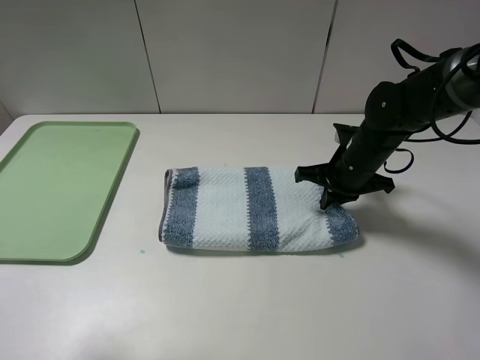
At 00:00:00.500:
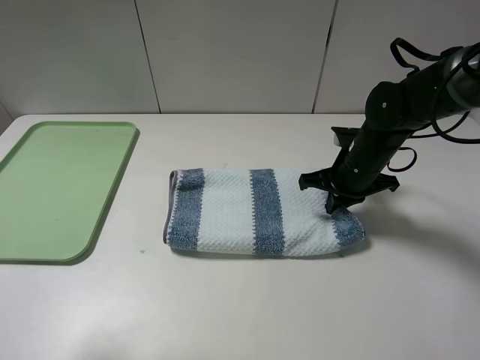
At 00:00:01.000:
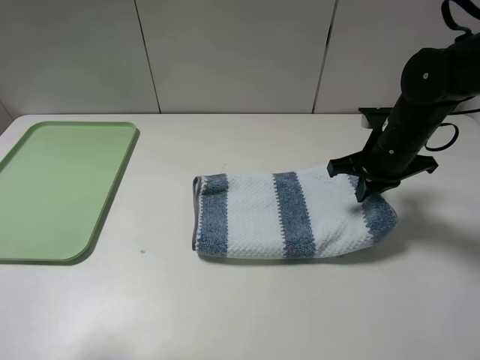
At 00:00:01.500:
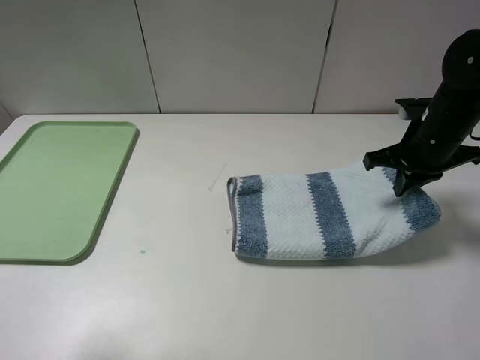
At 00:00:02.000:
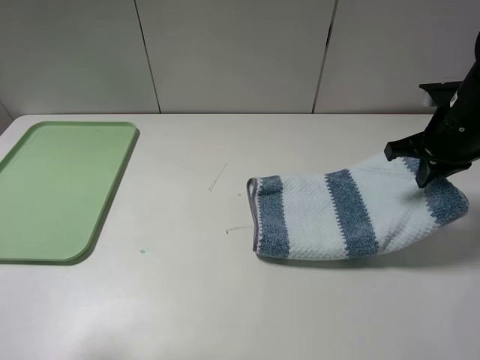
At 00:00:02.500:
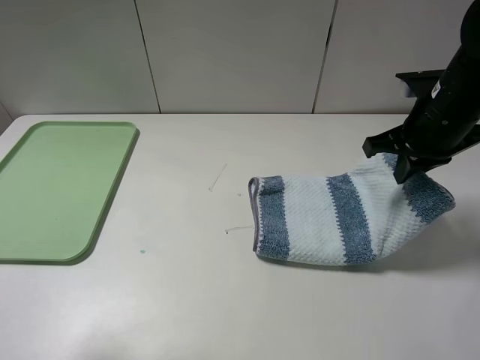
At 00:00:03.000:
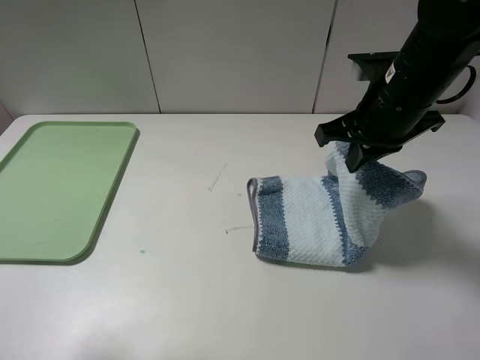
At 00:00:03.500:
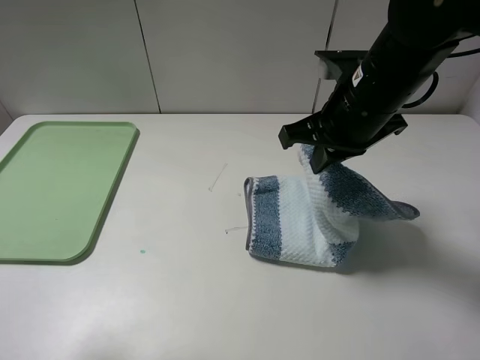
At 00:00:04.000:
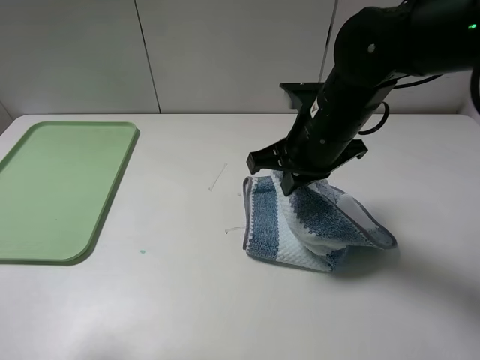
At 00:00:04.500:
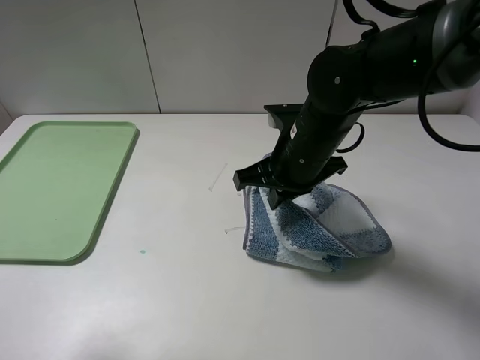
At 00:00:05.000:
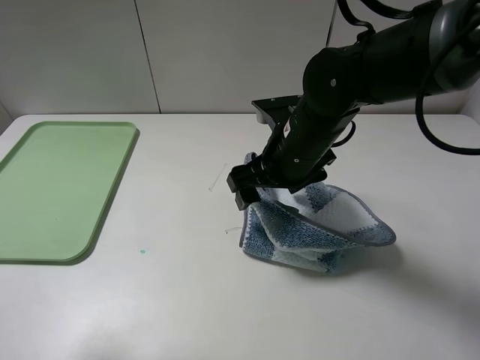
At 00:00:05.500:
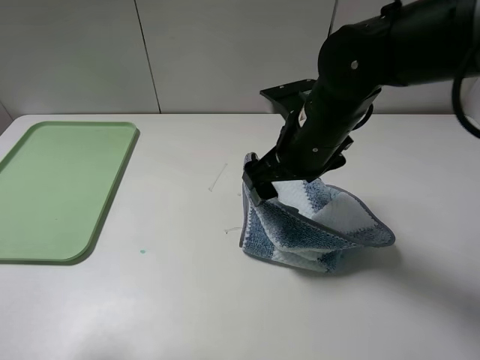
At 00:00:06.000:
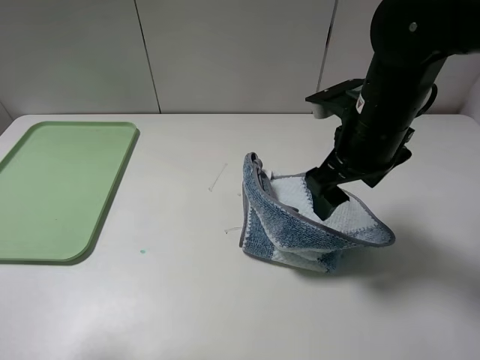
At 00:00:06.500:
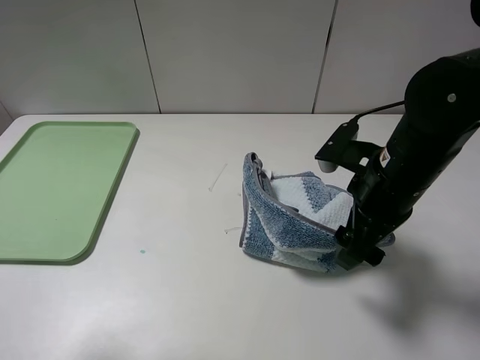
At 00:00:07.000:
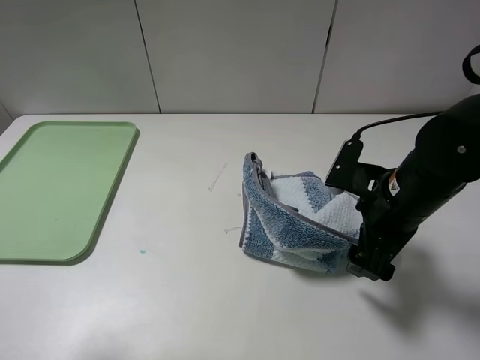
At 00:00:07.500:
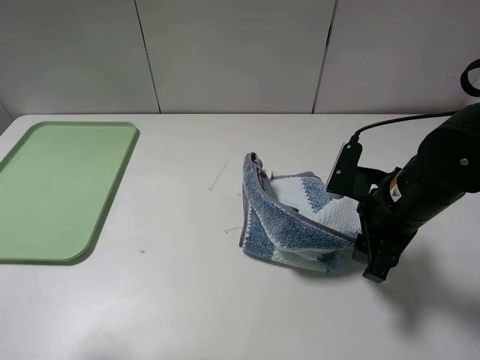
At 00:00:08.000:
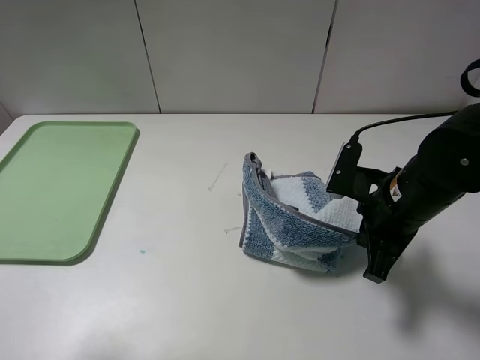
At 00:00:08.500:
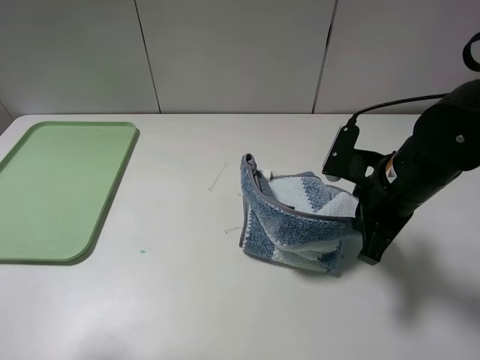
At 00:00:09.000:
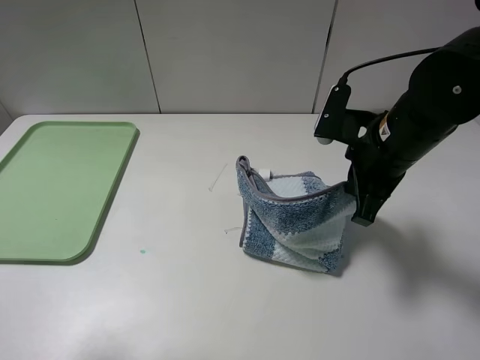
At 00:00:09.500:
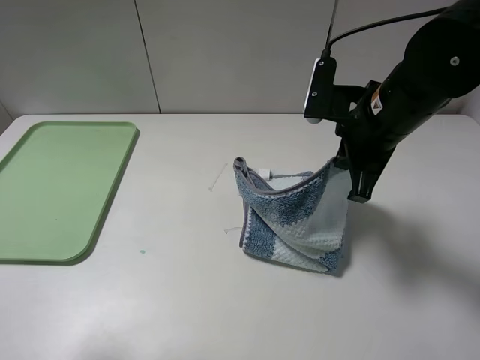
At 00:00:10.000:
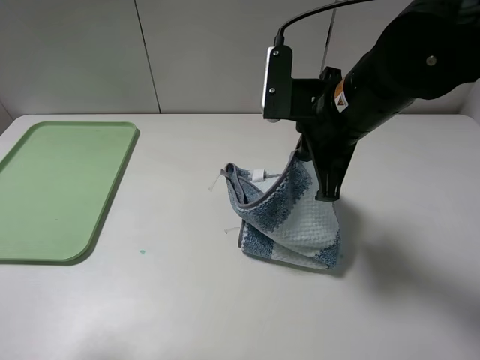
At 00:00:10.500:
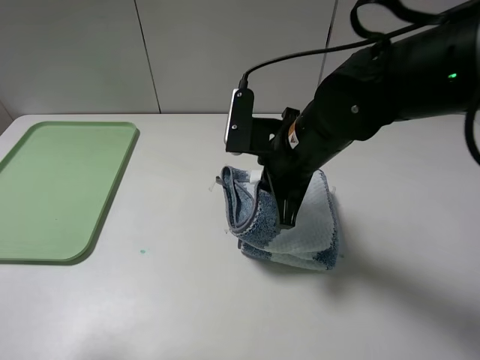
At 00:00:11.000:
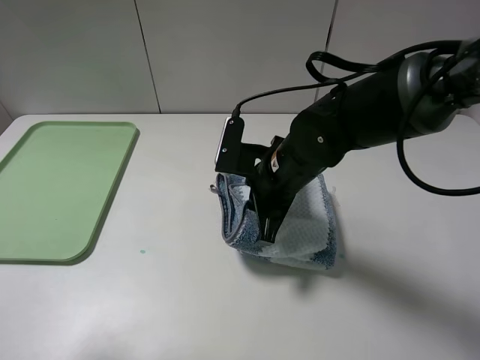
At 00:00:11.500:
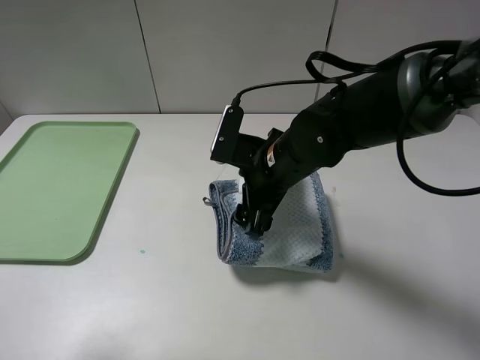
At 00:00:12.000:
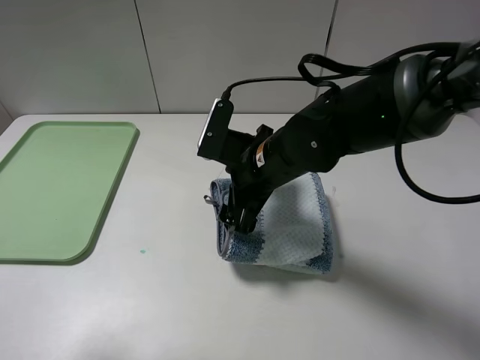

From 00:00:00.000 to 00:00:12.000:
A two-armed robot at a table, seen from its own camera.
From 00:00:00.000 to 00:00:02.000: The right gripper travels upward and to the right by approximately 15 cm.
From 00:00:02.000 to 00:00:04.000: The right gripper travels to the left by roughly 20 cm.
From 00:00:04.000 to 00:00:06.000: The right gripper shifts some 5 cm to the right, and opens.
From 00:00:06.000 to 00:00:08.000: The right gripper is displaced downward by about 5 cm, and closes its fingers.
From 00:00:08.000 to 00:00:10.000: The right gripper goes some 15 cm upward and to the left.
From 00:00:10.000 to 00:00:12.000: The right gripper shifts some 10 cm downward and to the left, and opens its fingers.

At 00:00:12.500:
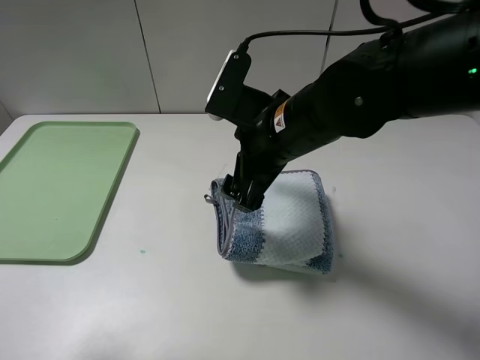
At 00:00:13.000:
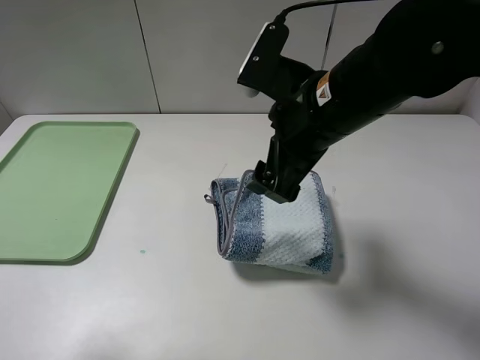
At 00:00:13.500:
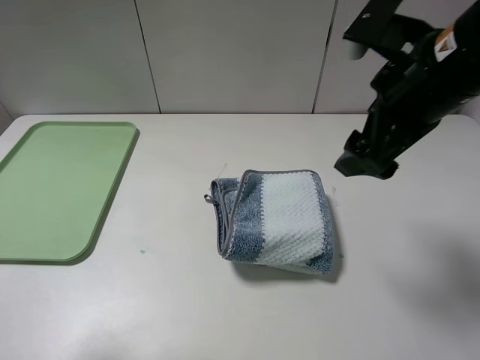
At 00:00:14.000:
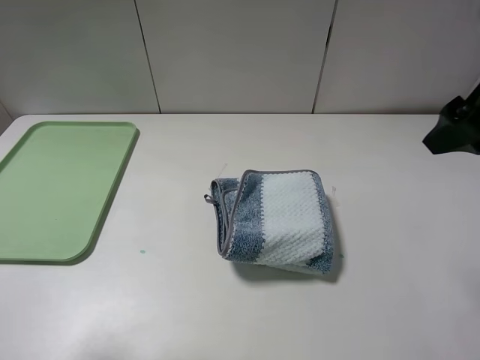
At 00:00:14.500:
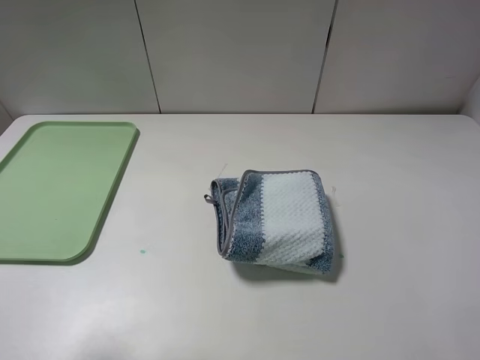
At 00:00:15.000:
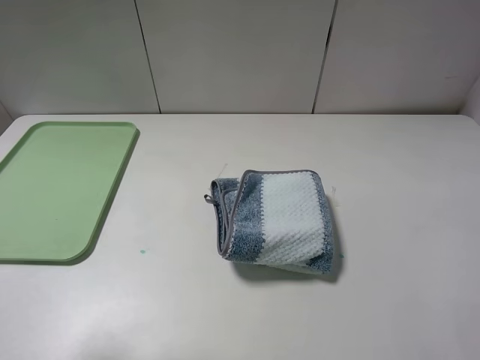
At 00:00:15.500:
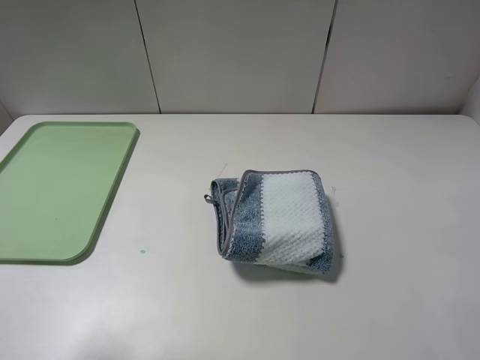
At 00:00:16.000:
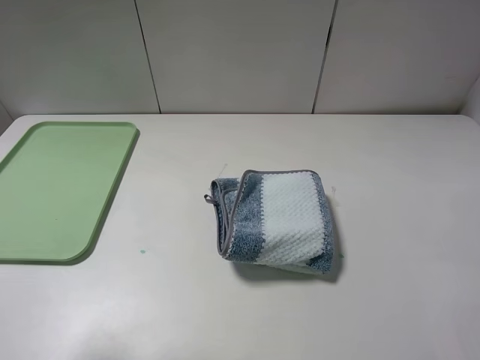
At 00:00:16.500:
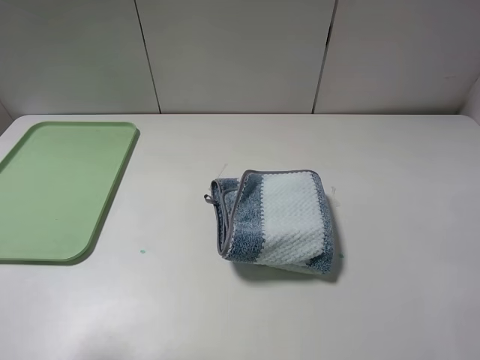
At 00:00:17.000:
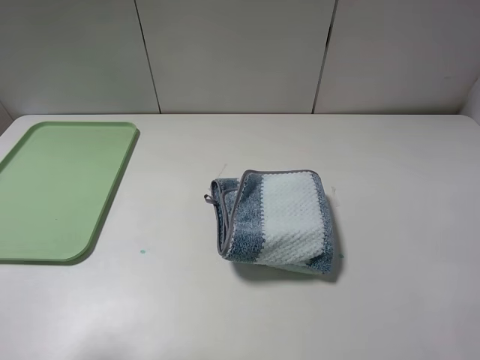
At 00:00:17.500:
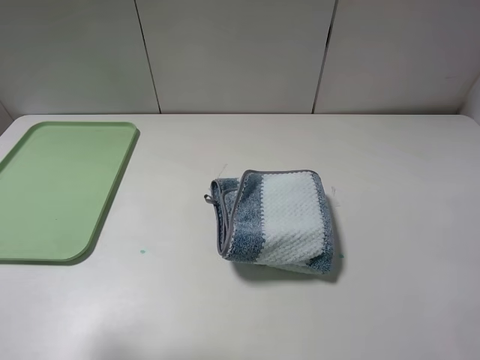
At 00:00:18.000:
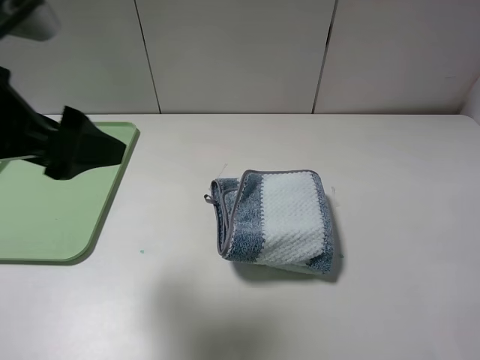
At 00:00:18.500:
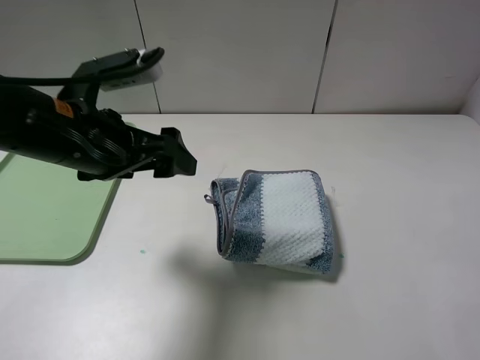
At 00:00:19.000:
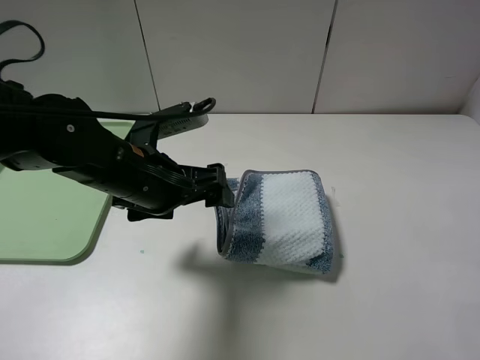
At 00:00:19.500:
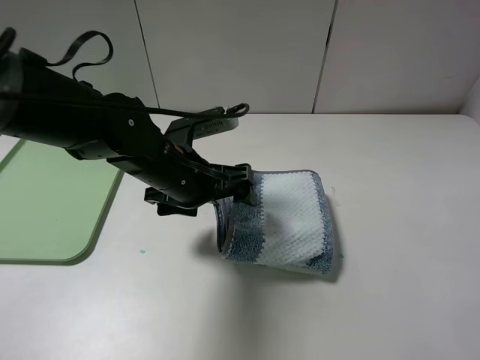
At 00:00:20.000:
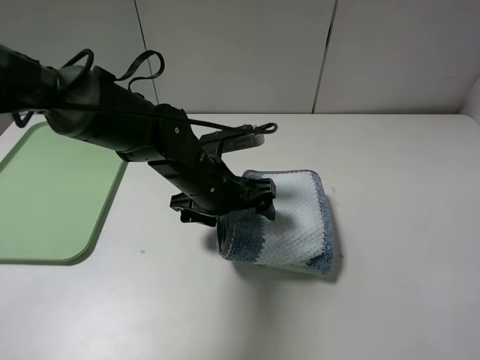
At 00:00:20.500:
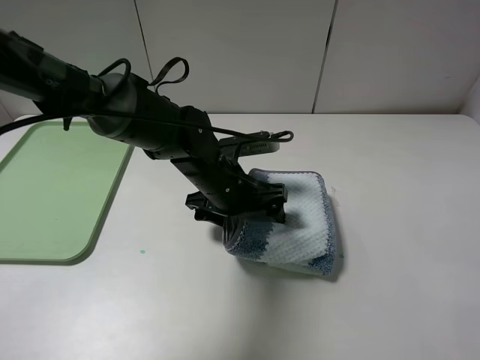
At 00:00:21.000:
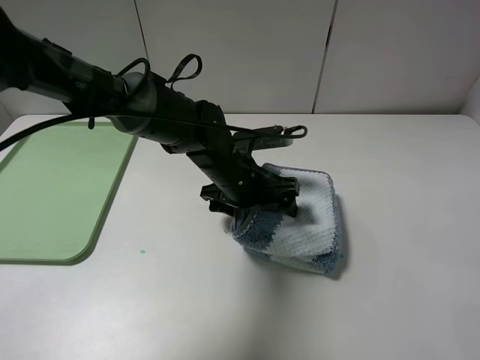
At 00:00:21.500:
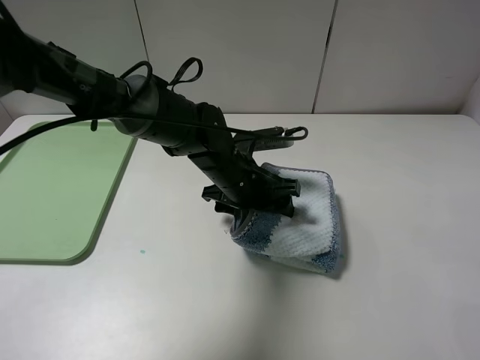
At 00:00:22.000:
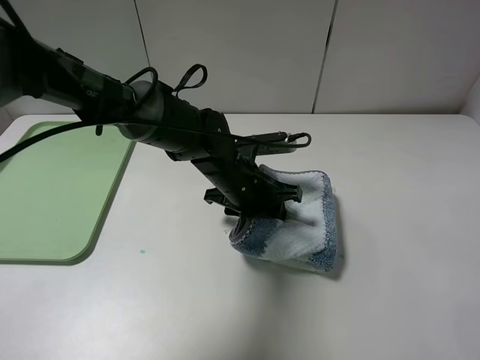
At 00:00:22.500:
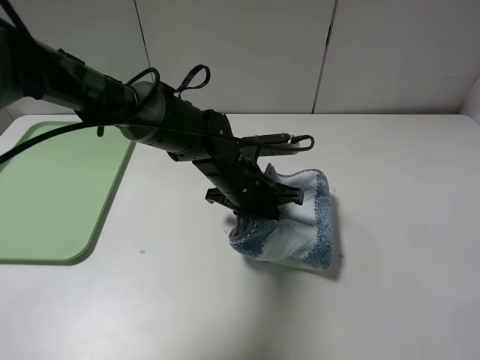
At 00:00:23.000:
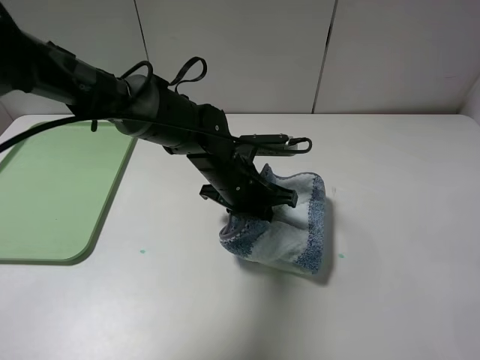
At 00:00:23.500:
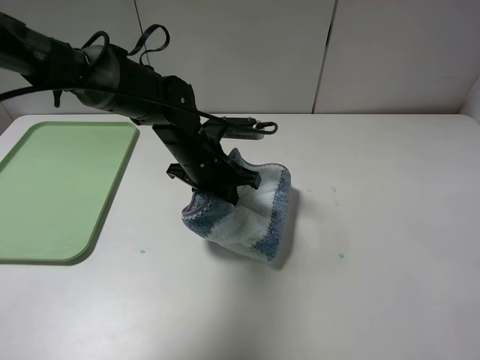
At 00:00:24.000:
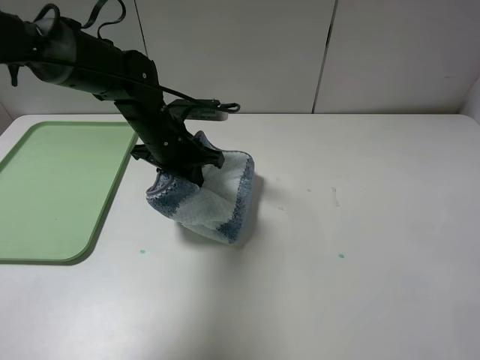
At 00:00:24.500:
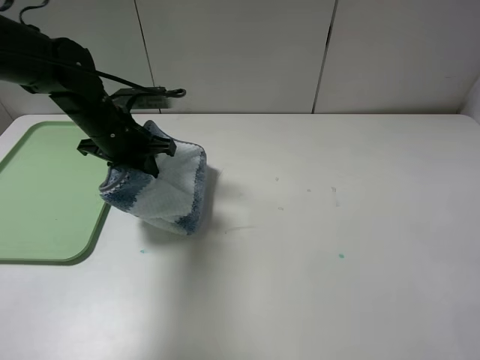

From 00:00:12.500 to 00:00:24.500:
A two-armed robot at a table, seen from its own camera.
Step, from 00:00:13.000 to 00:00:22.500: Grasp the blue white towel with the left gripper.
From 00:00:12.500 to 00:00:14.500: The right gripper shifts approximately 25 cm to the right and upward.
From 00:00:16.500 to 00:00:18.500: The left gripper is displaced forward, to the right and downward by approximately 20 cm.
From 00:00:18.500 to 00:00:20.500: The left gripper travels to the right, downward and forward by approximately 20 cm.
From 00:00:20.500 to 00:00:22.500: The left gripper closes its fingers.
From 00:00:22.500 to 00:00:24.500: The left gripper moves to the left, some 20 cm.

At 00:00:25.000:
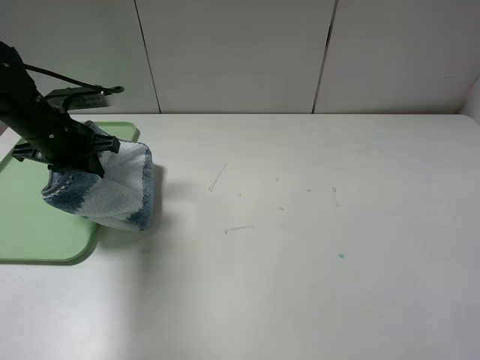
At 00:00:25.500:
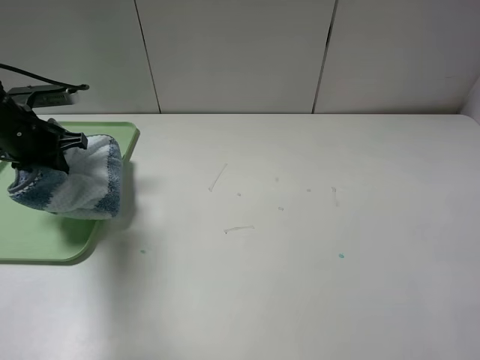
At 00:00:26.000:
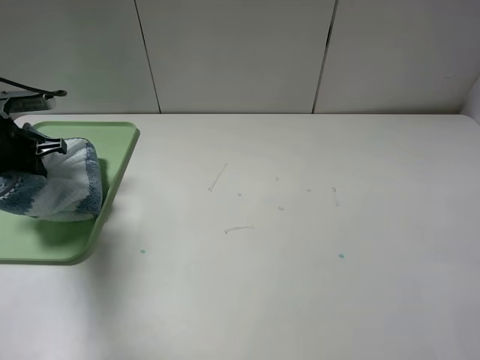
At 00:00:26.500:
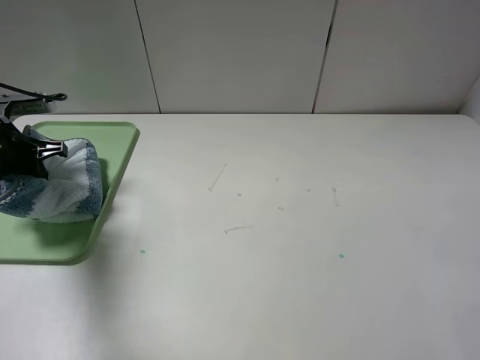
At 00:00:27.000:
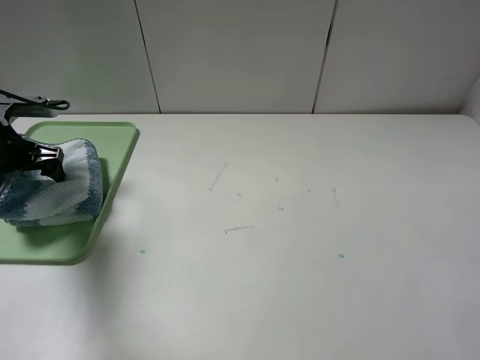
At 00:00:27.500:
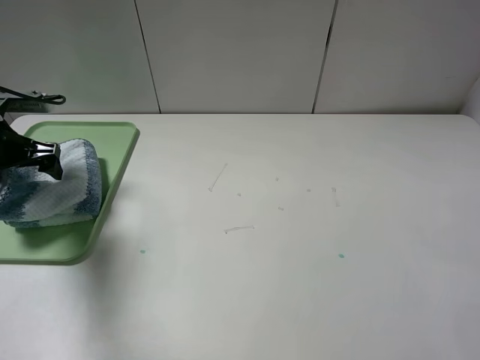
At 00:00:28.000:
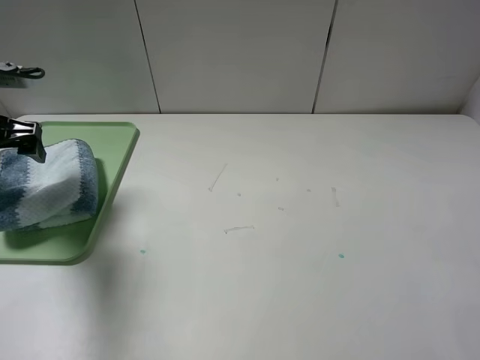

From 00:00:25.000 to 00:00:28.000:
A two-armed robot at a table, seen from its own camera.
From 00:00:25.000 to 00:00:26.500: The left gripper shifts some 10 cm to the left.
From 00:00:26.500 to 00:00:28.000: The left gripper moves upward, roughly 5 cm, and opens.
